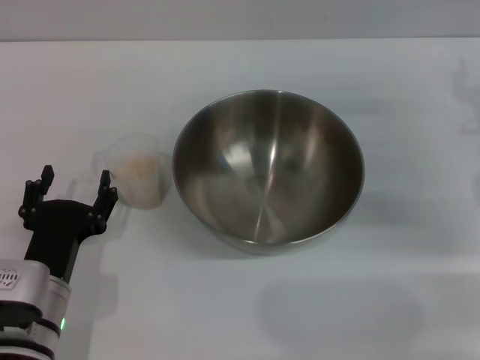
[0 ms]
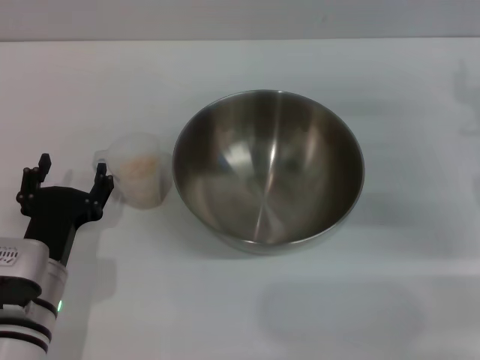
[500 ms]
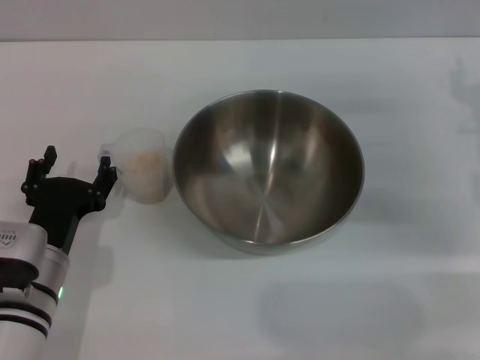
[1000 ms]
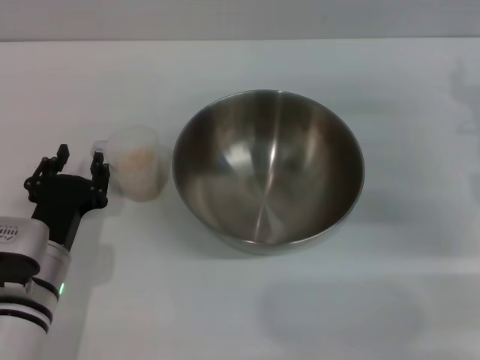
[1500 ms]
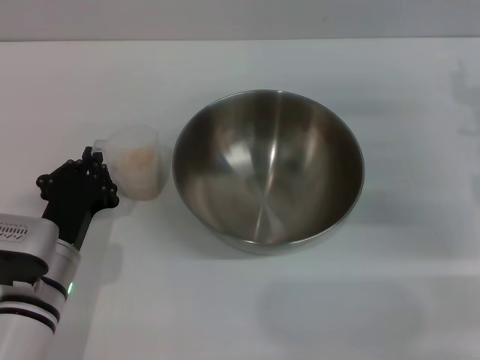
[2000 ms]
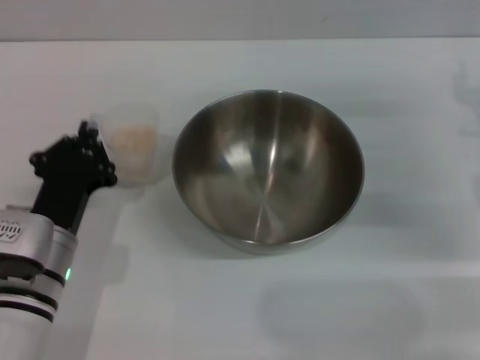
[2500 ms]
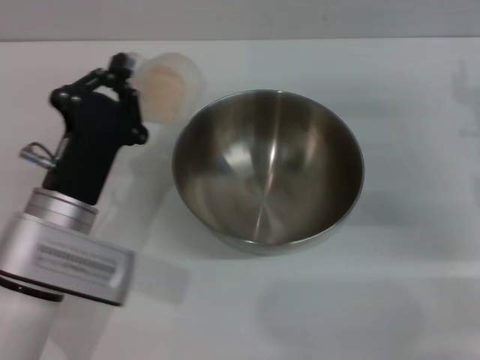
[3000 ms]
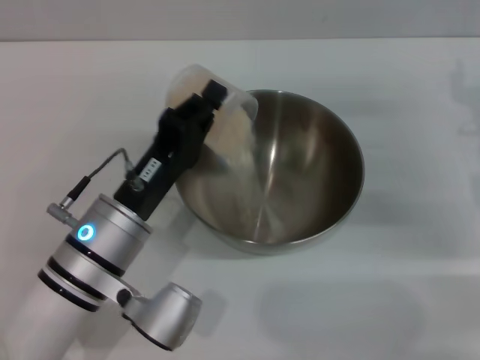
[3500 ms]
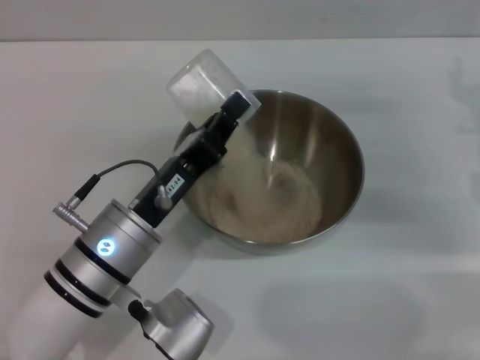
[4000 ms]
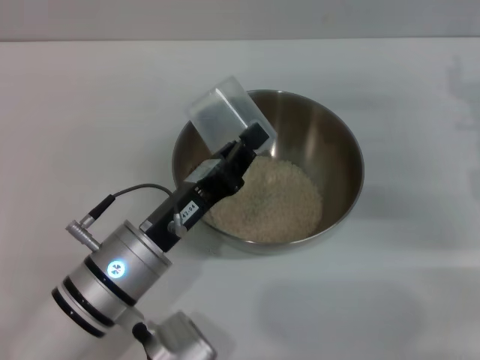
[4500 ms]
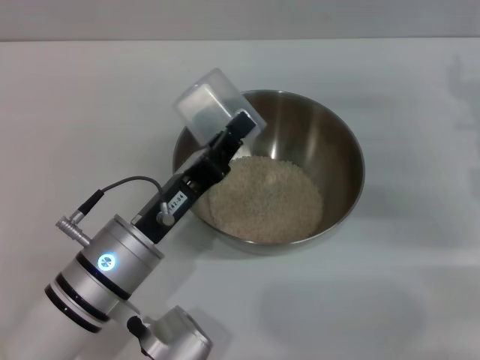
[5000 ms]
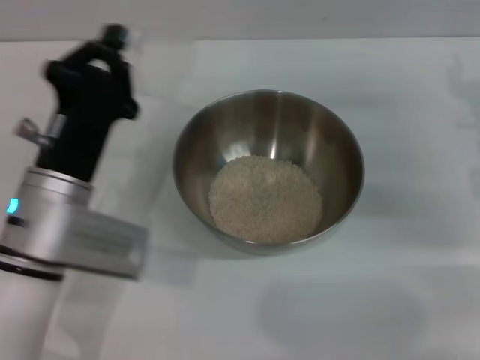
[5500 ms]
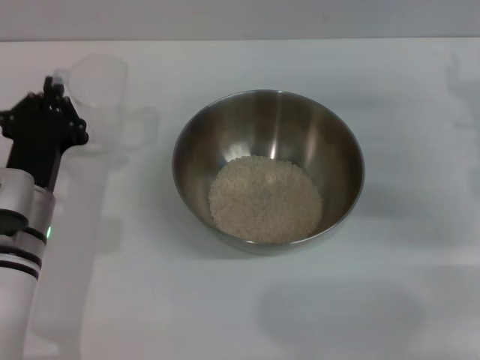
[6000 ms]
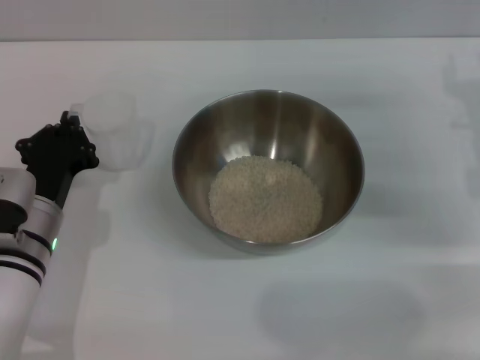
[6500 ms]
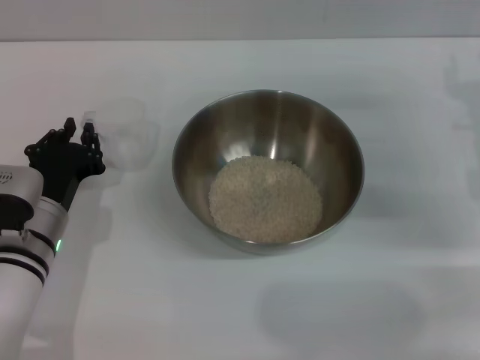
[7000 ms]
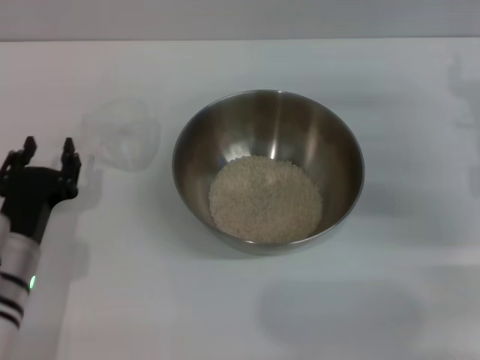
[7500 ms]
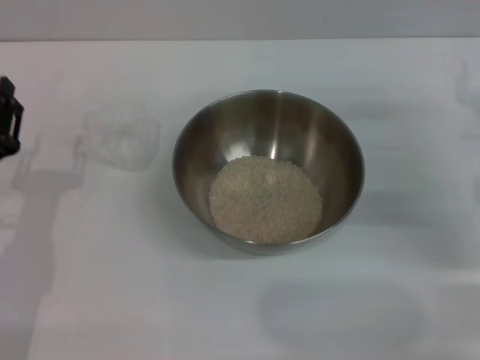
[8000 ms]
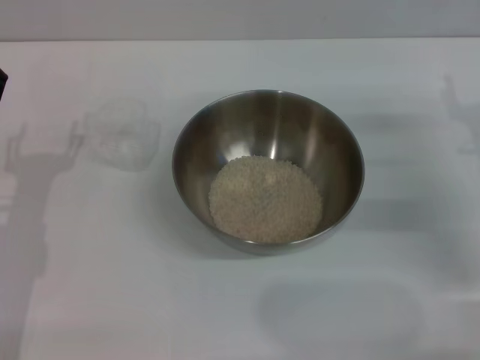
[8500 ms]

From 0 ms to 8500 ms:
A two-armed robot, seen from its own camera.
Task of the whole recording: Place the bowl in the middle of the table with one hand and pour the rice from the grain cup into it with the other hand.
Step, from 0 ms to 2000 ms: Pick up the cup with rice in it with the left gripper.
Step, from 2500 ms to 5000 ms: Pour the rice from the cup into the bowl with the left gripper.
Step, from 5500 ms to 7500 ms: Place the cup on the table with the left gripper.
From 0 ms to 2000 ms: The left gripper closes up.
From 2000 ms to 4000 ms: The left gripper shifts some 10 cm to the right and upward.
From 4000 ms to 6500 ms: The left gripper moves to the left, about 10 cm.
From 6500 ms to 8500 ms: The left gripper shifts approximately 5 cm to the left, and opens up. The right gripper moves about 5 cm.
